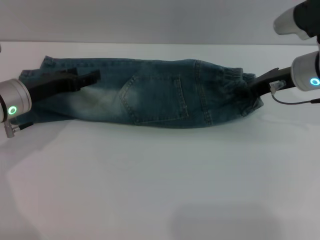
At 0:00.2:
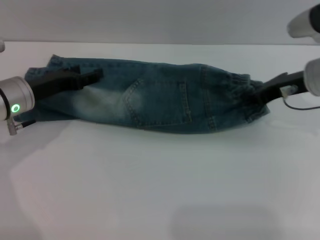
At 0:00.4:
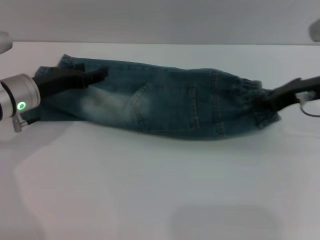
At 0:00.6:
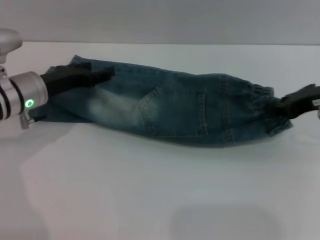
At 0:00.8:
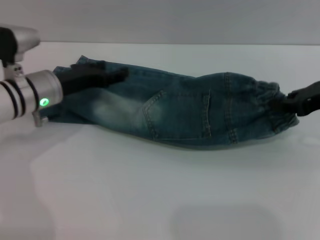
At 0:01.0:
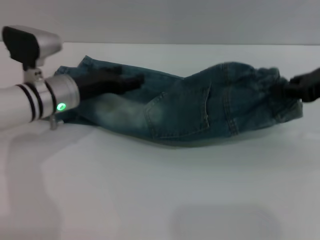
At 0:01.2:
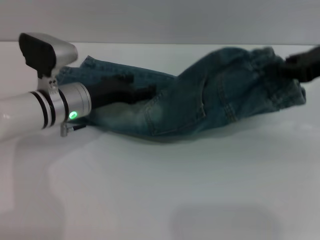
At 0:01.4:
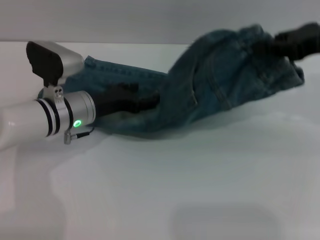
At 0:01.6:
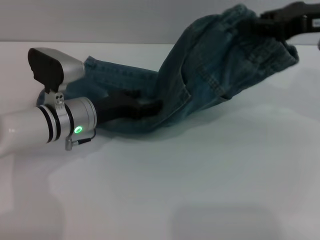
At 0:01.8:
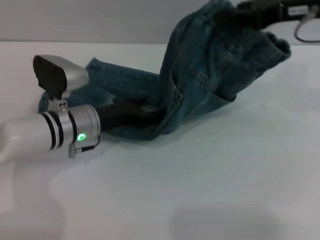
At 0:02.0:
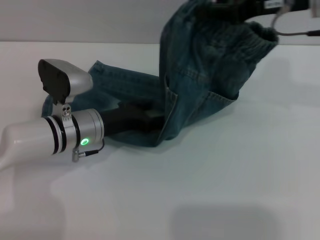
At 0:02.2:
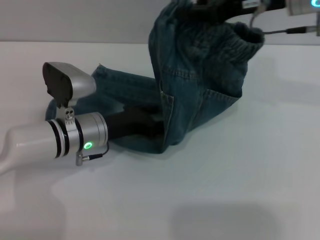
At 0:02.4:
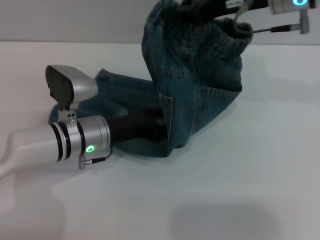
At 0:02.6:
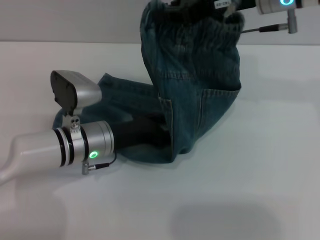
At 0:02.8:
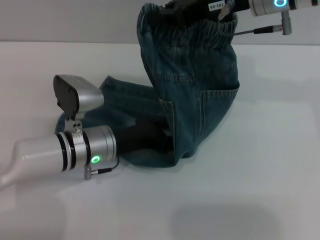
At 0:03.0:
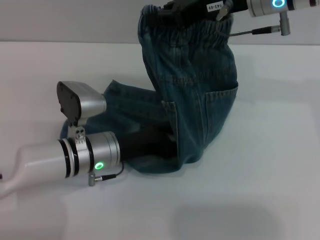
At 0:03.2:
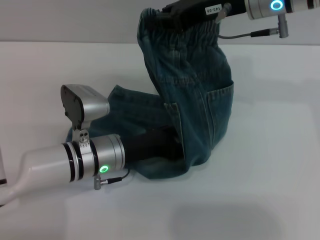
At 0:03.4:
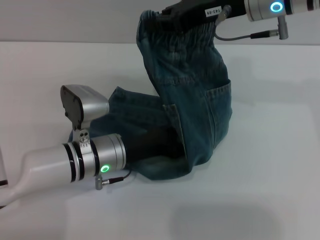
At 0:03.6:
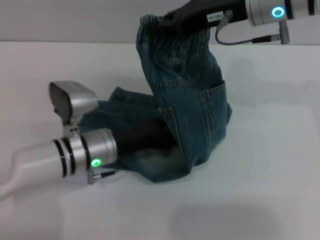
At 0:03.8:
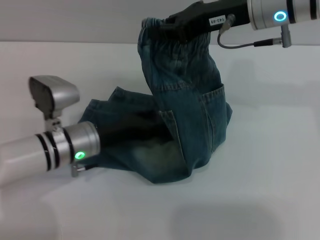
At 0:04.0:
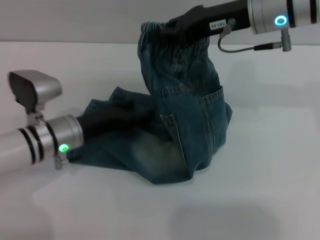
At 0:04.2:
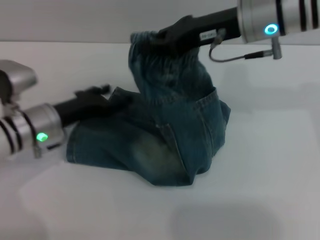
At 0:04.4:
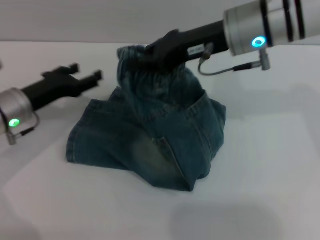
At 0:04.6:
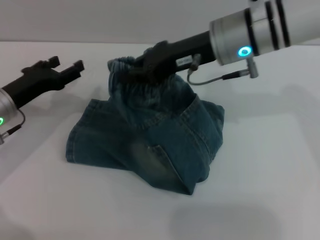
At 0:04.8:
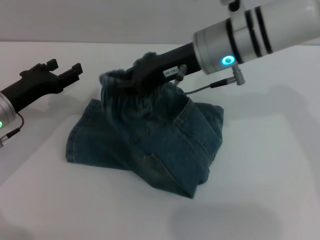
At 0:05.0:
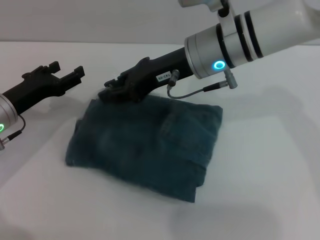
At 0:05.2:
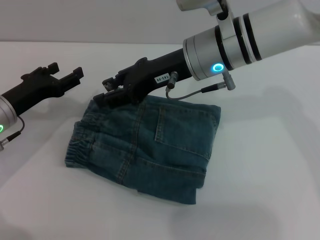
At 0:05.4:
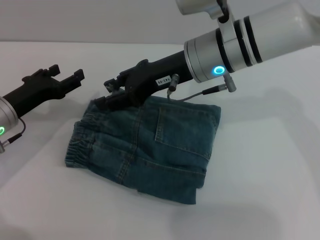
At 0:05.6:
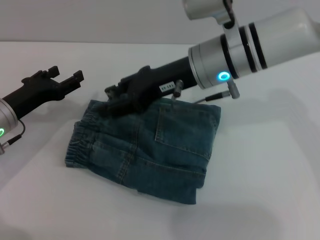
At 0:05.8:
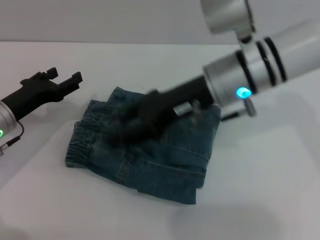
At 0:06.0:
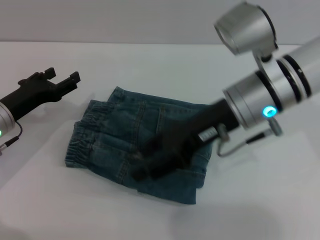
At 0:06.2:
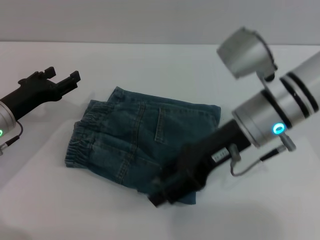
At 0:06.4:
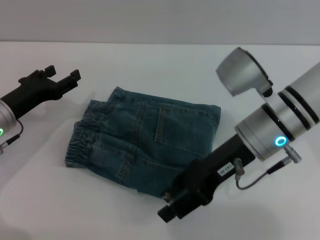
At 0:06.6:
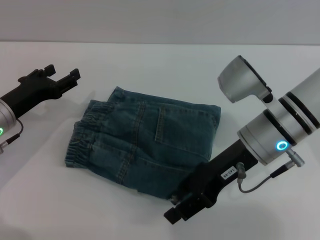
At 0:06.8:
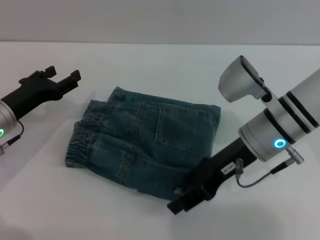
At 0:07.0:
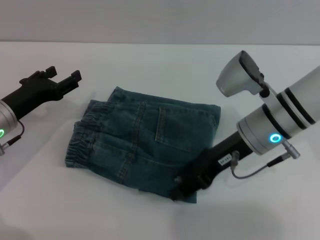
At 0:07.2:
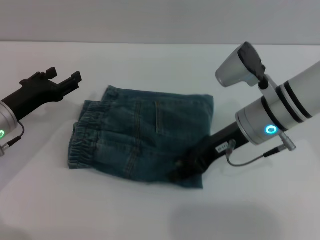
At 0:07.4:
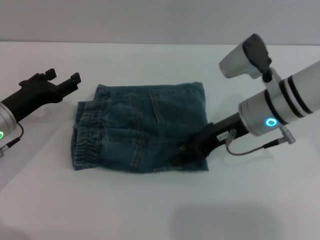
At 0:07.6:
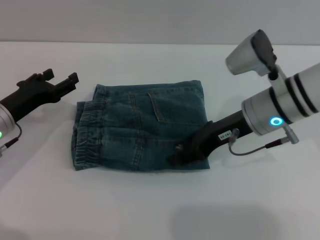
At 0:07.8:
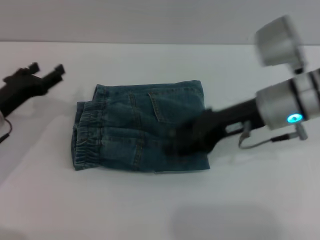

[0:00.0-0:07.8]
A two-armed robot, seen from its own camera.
Step, 0:00.0 to 0:05.2: Fold the shorts from right to left with right gripper.
Step, 0:05.4 to 0:07.6: Place the folded trousers onto the center area with right gripper.
0:00.0 to 0:01.6: The right gripper moves upward, roughly 10 cm. Meanwhile the left gripper goes roughly 10 cm to the right.
0:01.6 to 0:03.2: The right gripper heads to the left, covering about 10 cm. The left gripper shifts roughly 5 cm backward.
0:03.2 to 0:04.6: The left gripper heads to the left, covering approximately 15 cm. Meanwhile the right gripper changes place by about 5 cm.
0:04.6 to 0:06.2: The right gripper moves backward and downward, some 10 cm, and opens up.
